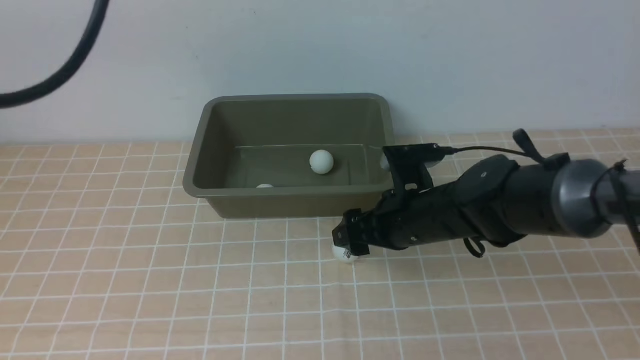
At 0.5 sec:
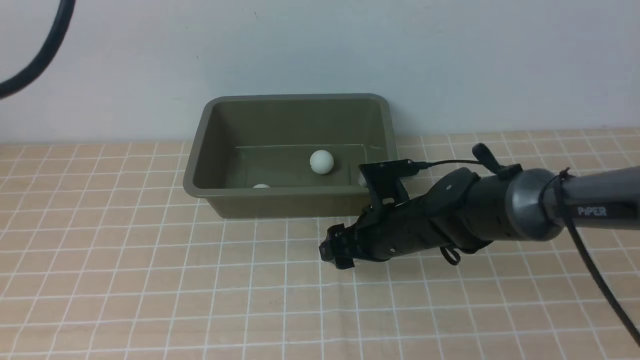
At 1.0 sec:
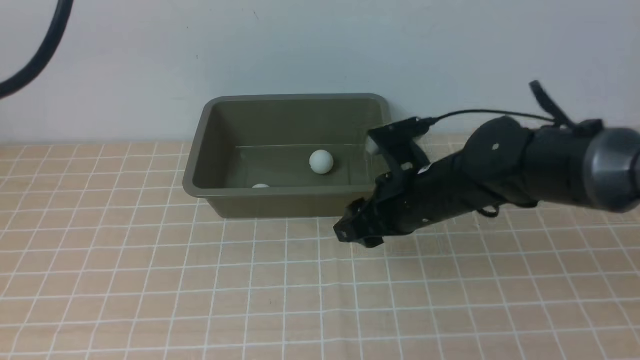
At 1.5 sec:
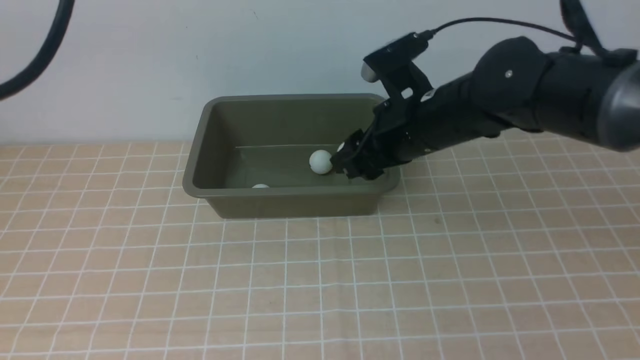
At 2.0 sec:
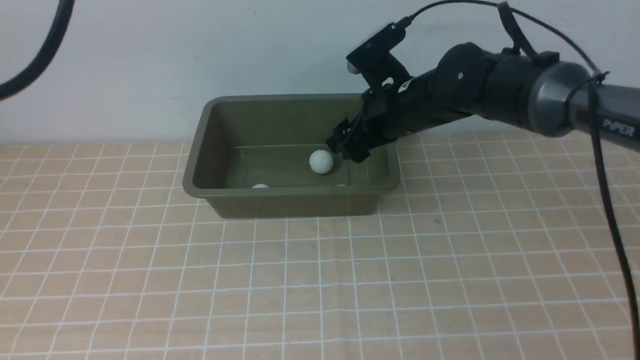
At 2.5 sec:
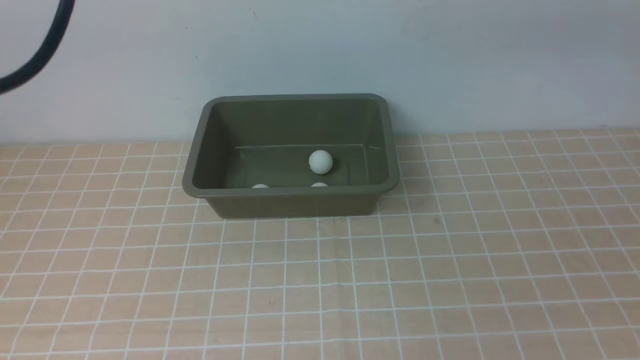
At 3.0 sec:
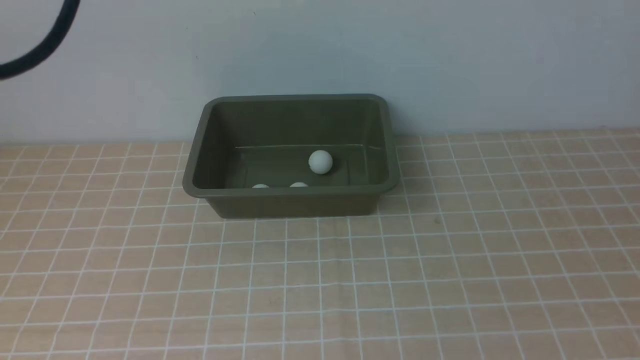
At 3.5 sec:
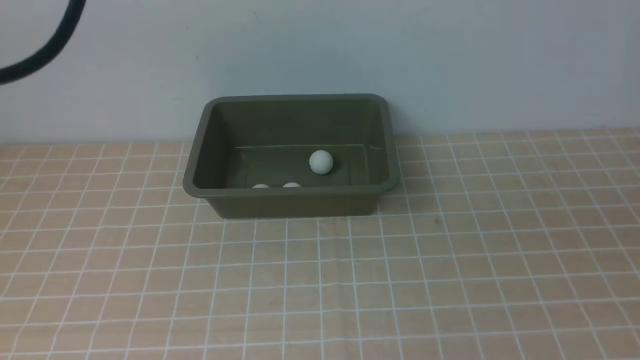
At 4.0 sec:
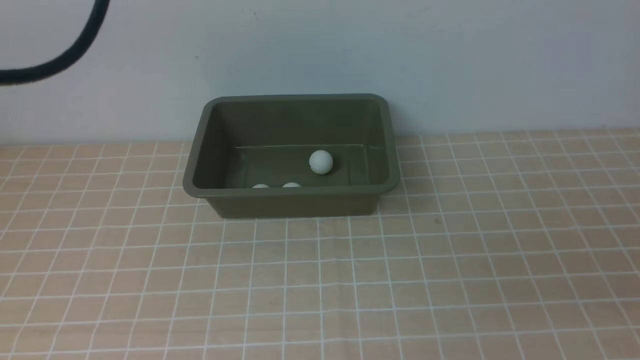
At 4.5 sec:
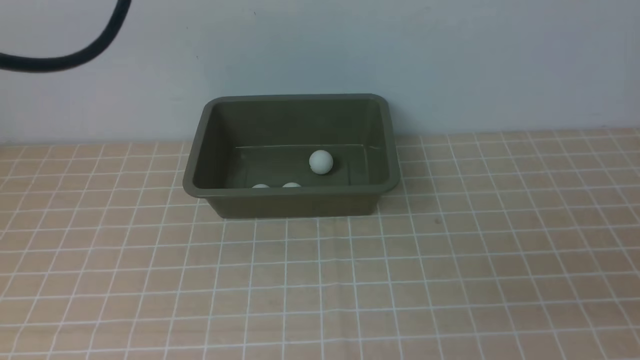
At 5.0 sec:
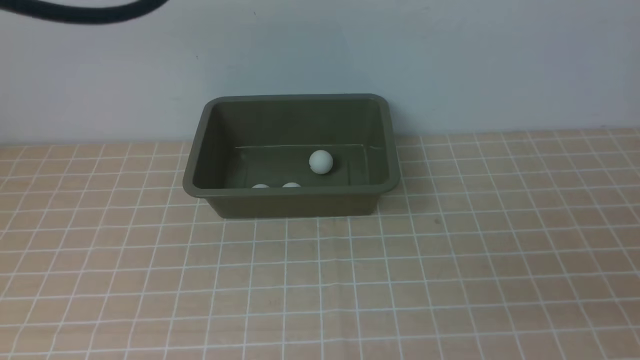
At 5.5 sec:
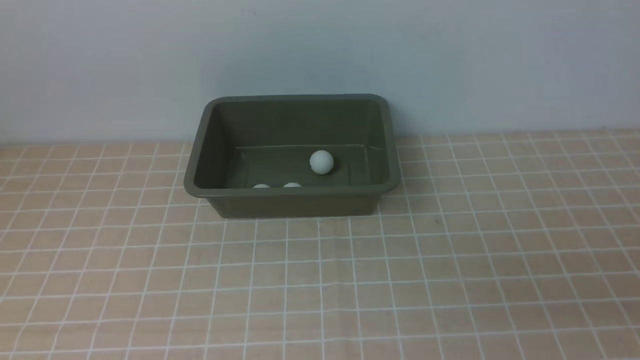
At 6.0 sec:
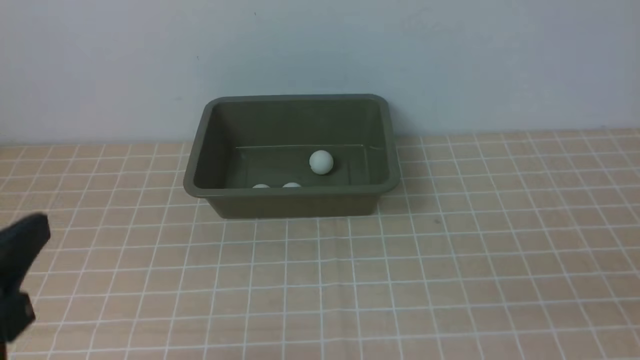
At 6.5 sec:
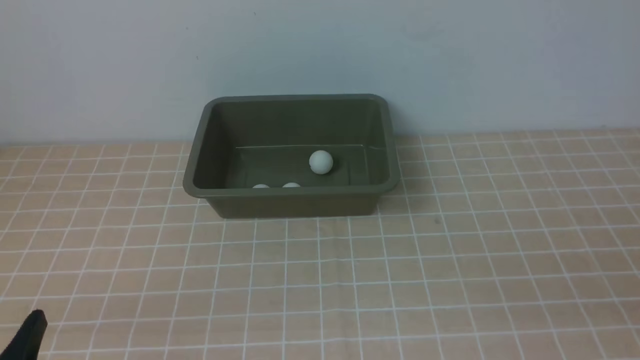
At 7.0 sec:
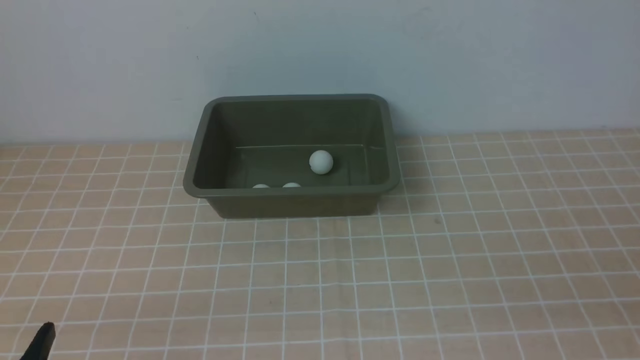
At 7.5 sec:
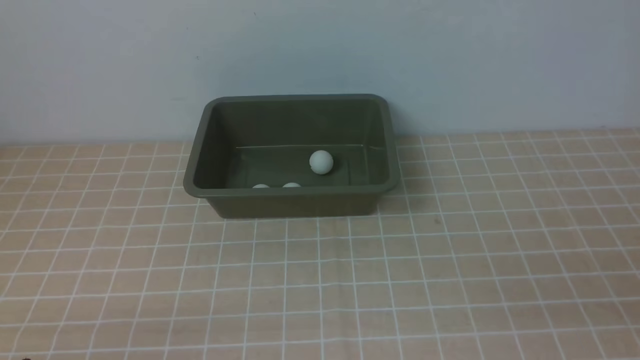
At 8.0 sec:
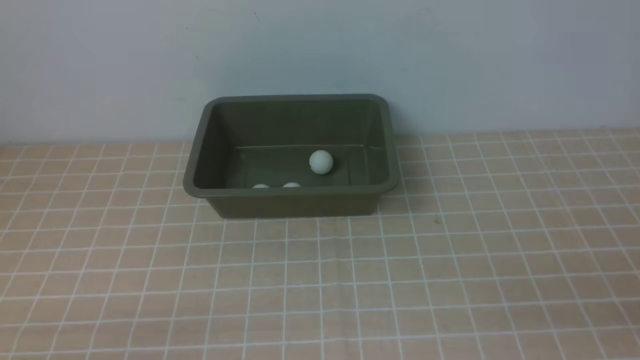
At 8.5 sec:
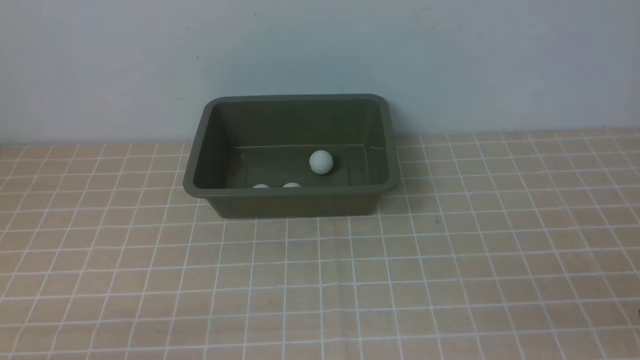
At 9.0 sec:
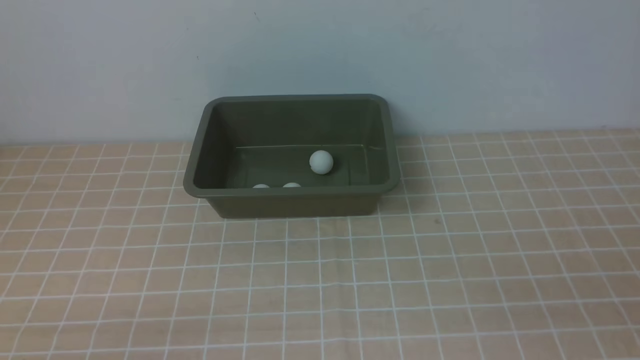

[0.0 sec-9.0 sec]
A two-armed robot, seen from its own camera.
Step, 1.5 sec to 2.0 sec: use the right arm to put the table tennis ball into the box.
0.0 sec to 2.0 sec: The right gripper travels upward and forward by about 15 cm, and closes and opens again.
2.0 sec to 4.5 sec: The right gripper goes some 40 cm backward and to the right, and closes.
4.5 sec to 7.0 sec: The left gripper travels downward and backward by about 40 cm.

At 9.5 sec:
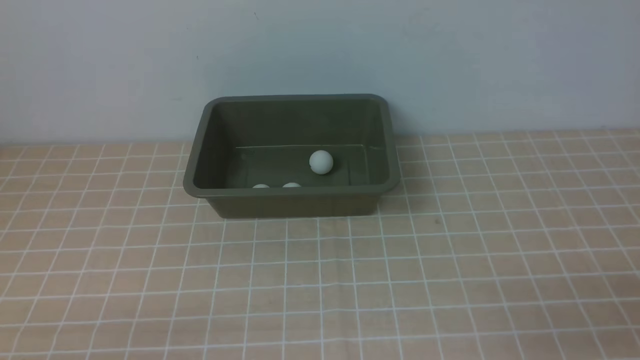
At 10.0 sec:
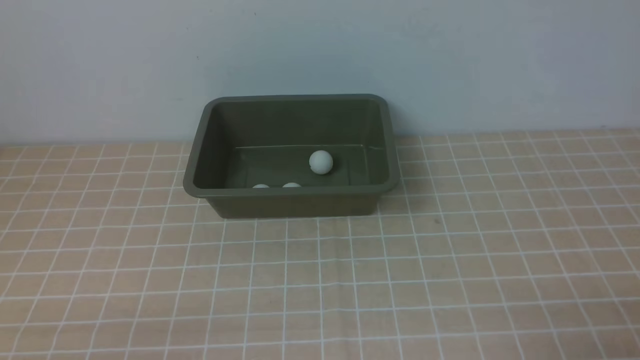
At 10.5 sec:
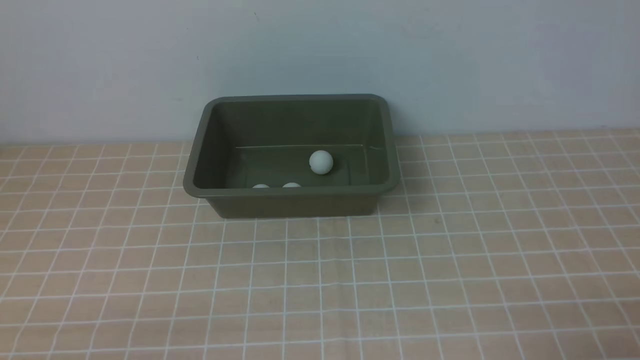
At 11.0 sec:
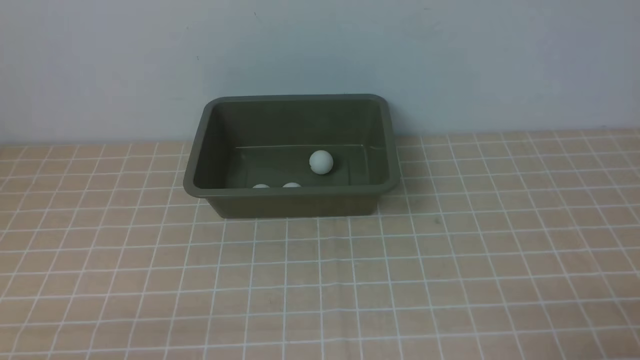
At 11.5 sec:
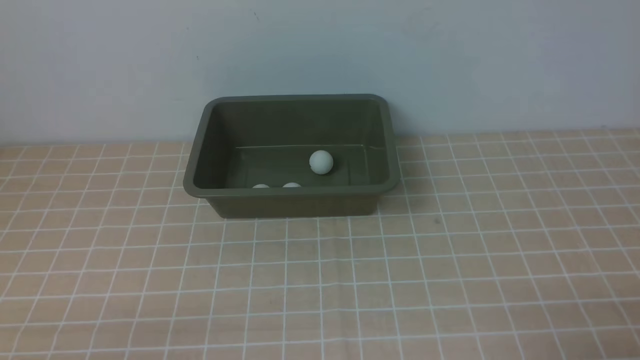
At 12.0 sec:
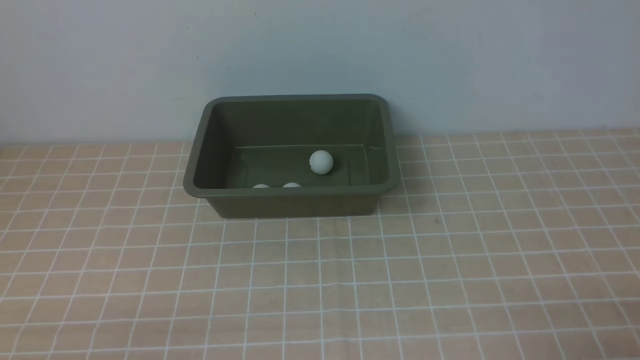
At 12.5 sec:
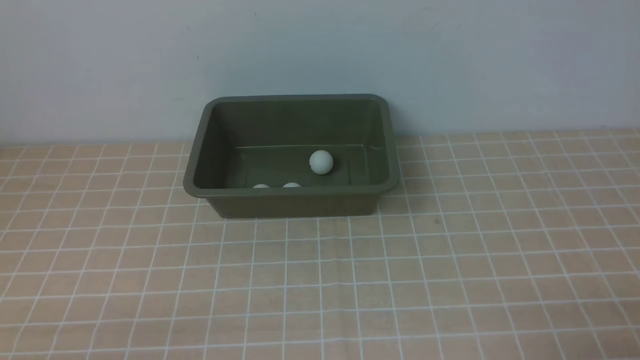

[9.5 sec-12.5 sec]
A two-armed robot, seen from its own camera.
11.0 sec to 12.5 sec: The two grippers keep their place.

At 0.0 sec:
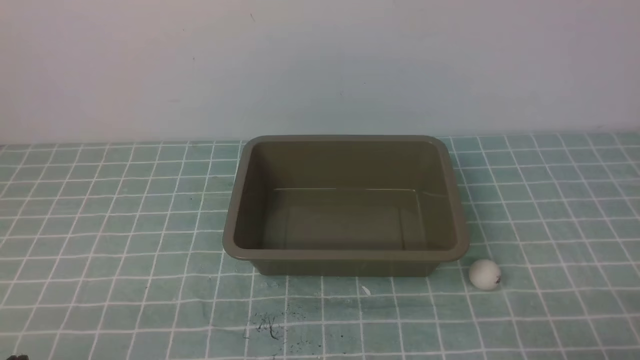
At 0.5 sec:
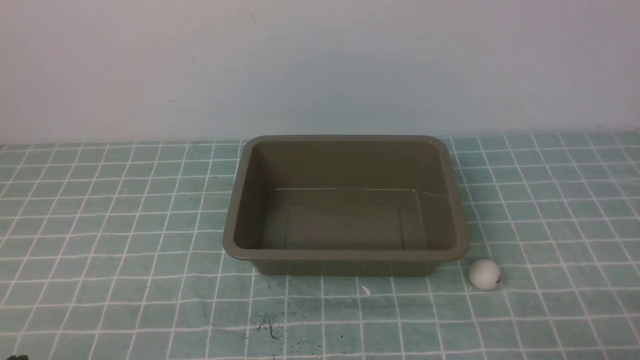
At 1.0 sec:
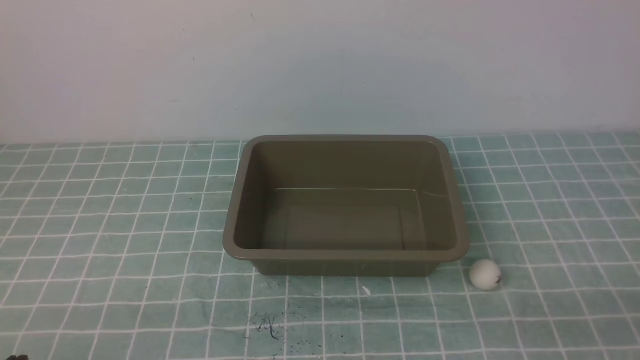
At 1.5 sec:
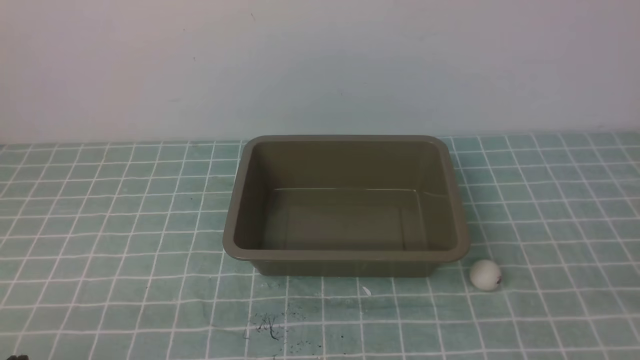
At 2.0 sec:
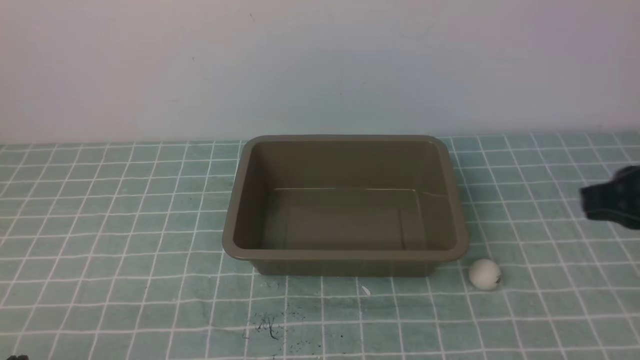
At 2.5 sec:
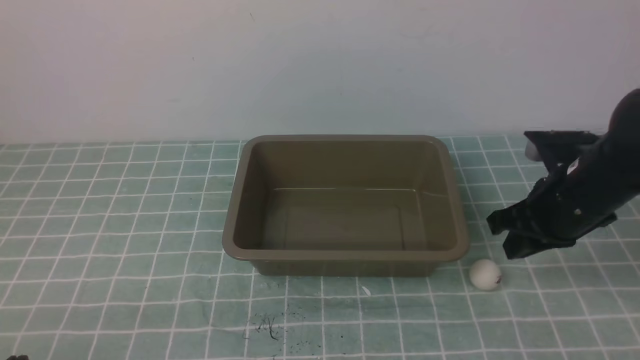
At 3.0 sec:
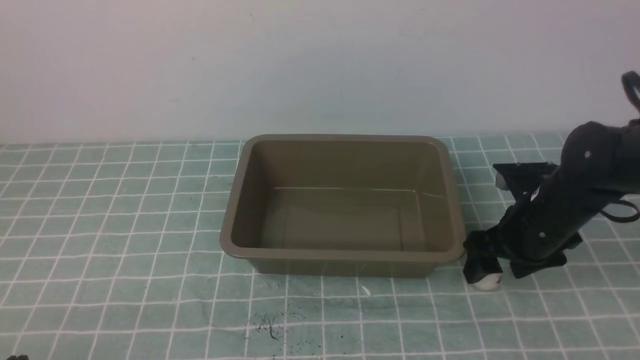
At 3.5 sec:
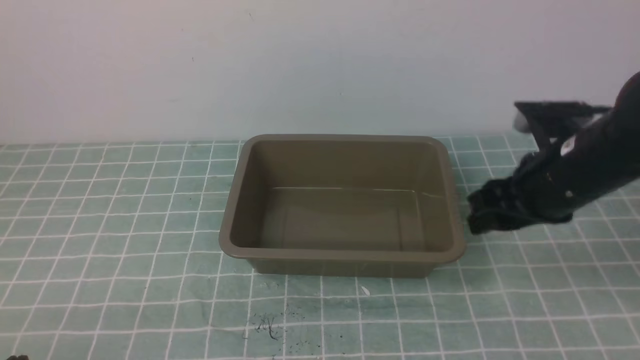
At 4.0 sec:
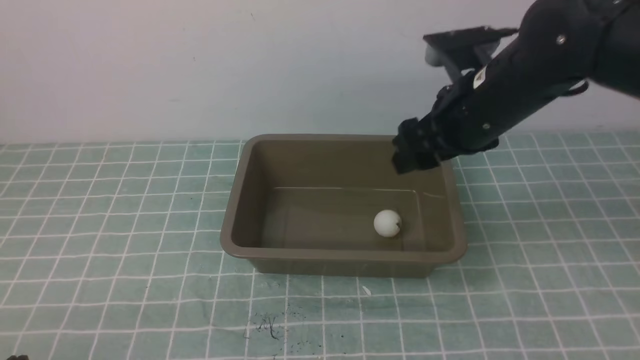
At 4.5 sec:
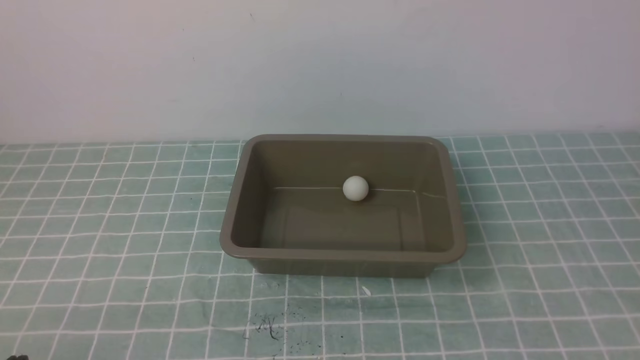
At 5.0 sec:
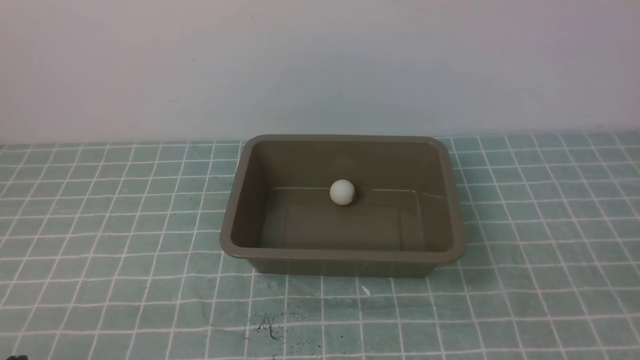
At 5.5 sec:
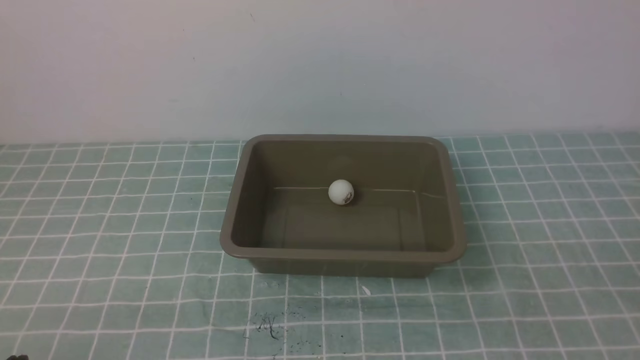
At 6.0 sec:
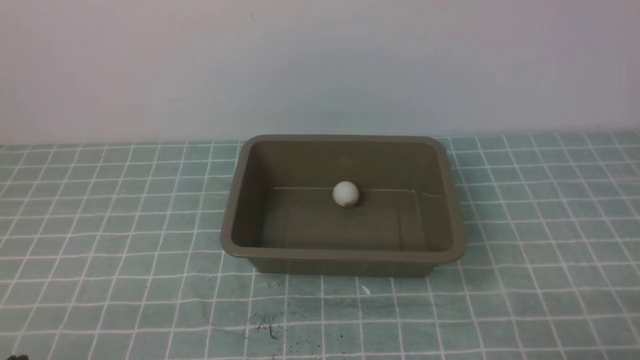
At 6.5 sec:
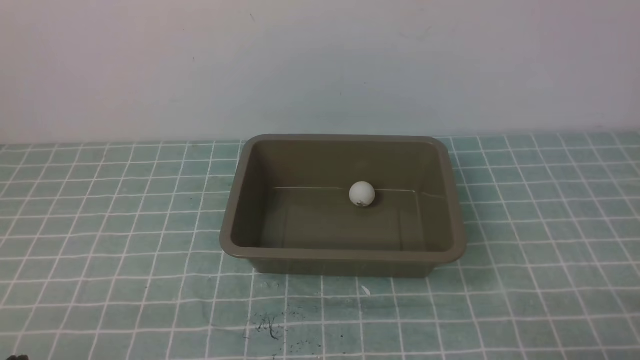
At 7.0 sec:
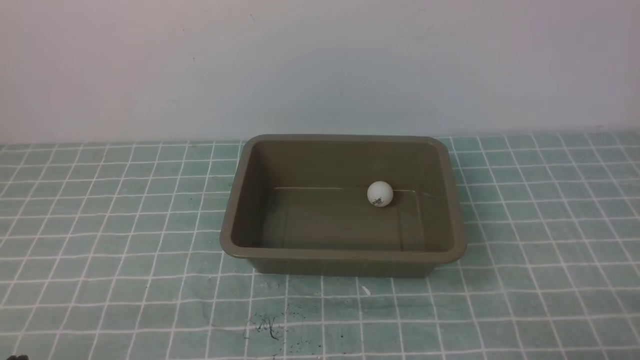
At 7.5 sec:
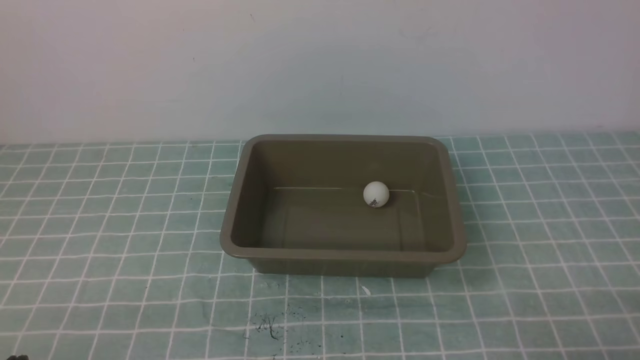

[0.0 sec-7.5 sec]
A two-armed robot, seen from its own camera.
Step, 0.0 sec to 3.5 sec: use the right arm to clamp the table tennis ball closest to it.
0.0 sec to 2.0 sec: The right gripper heads forward and upward, covering approximately 20 cm.
2.0 sec to 4.0 sec: The right gripper heads to the left and forward, covering roughly 15 cm, reaches roughly 15 cm downward, then returns, and opens.
4.0 sec to 5.5 sec: The right gripper shifts roughly 30 cm backward and to the right, and closes its fingers.
